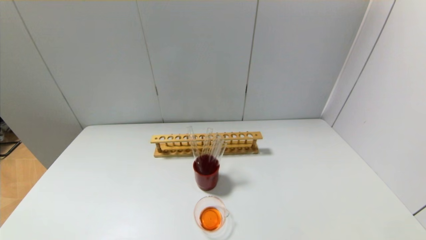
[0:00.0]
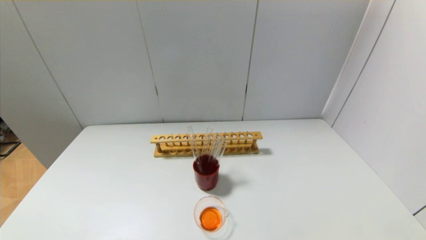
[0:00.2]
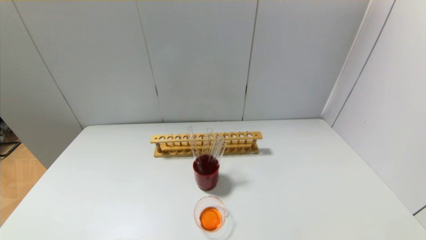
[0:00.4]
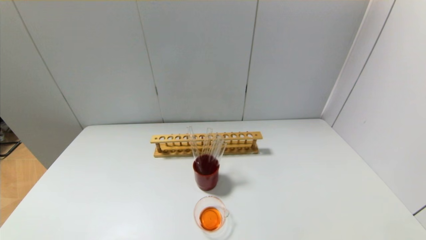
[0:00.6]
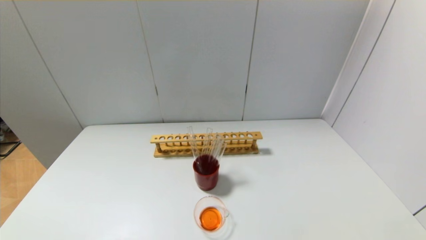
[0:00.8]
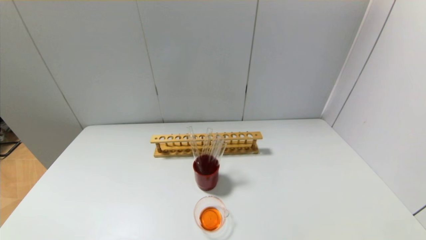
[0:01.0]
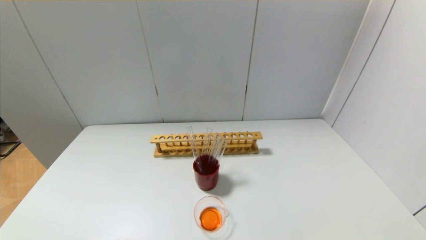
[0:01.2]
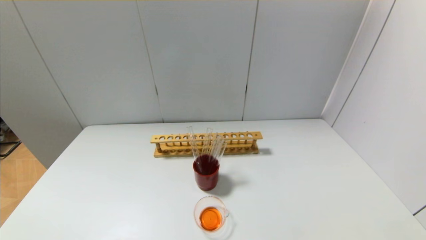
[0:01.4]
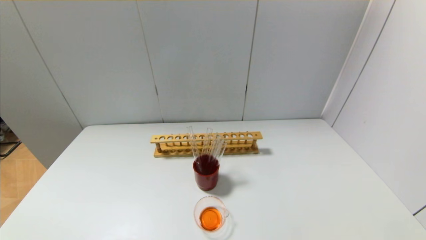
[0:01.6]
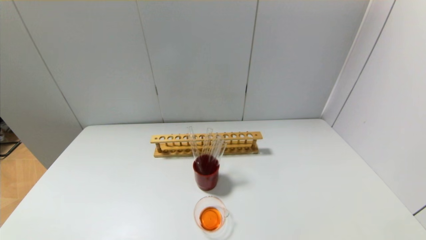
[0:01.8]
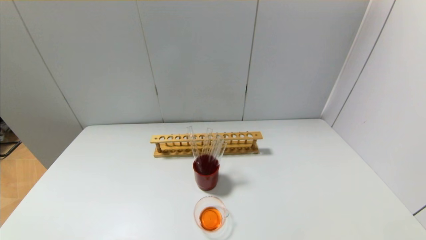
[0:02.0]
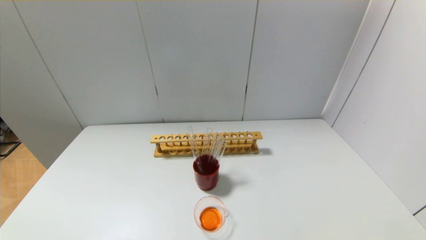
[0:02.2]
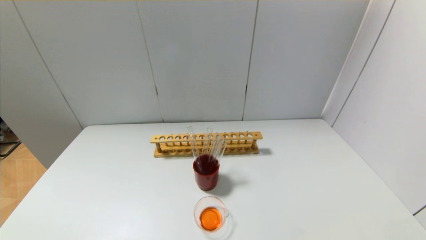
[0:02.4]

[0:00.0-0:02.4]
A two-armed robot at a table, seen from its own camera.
0:01.2 to 0:02.4: Both grippers stay put.
